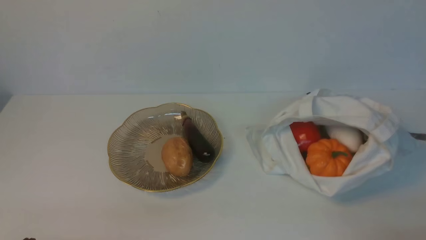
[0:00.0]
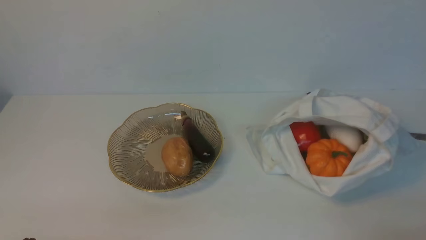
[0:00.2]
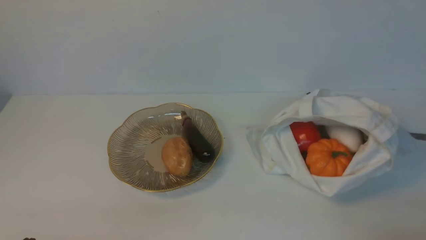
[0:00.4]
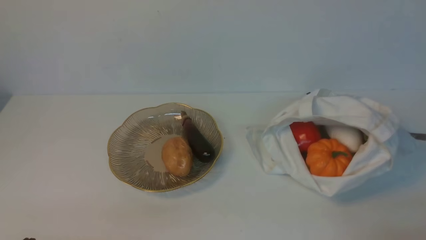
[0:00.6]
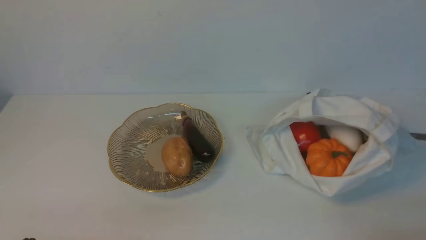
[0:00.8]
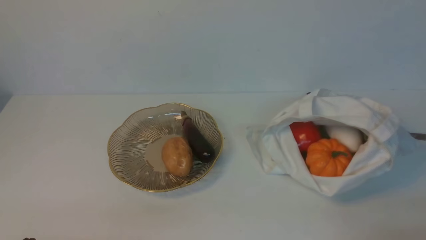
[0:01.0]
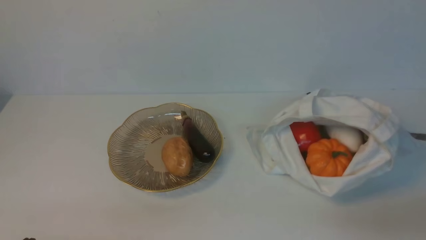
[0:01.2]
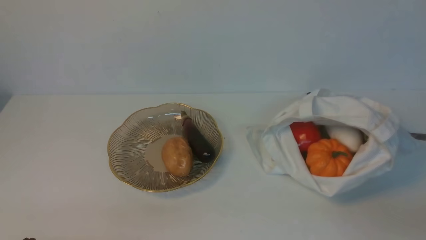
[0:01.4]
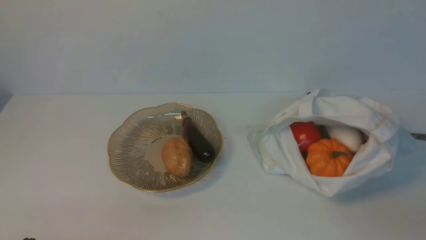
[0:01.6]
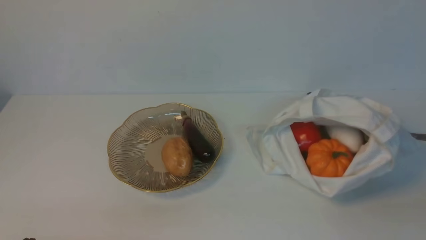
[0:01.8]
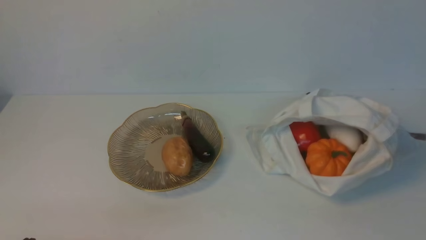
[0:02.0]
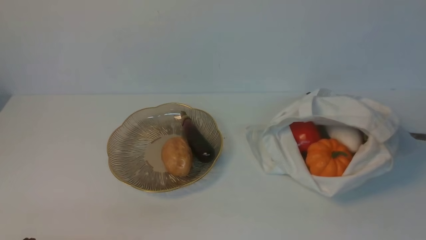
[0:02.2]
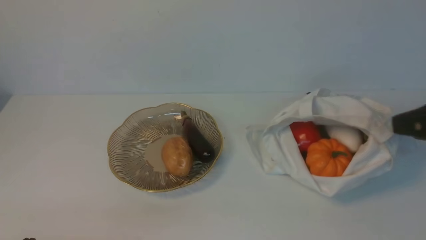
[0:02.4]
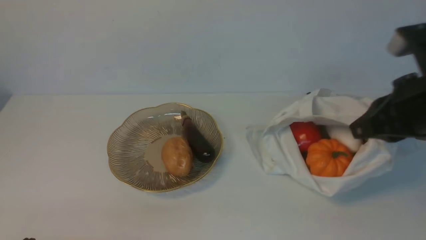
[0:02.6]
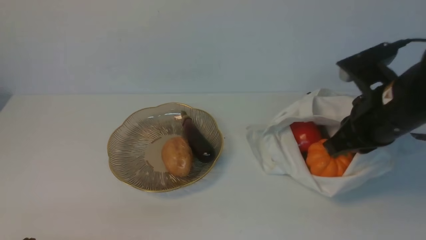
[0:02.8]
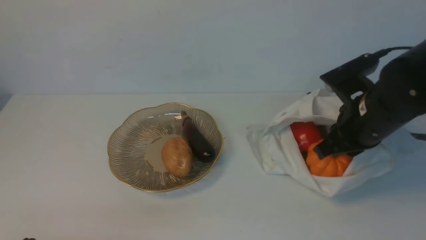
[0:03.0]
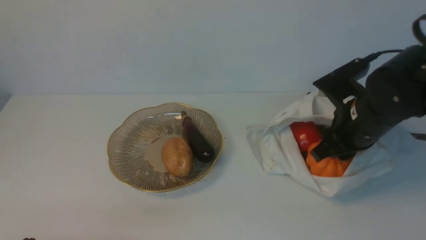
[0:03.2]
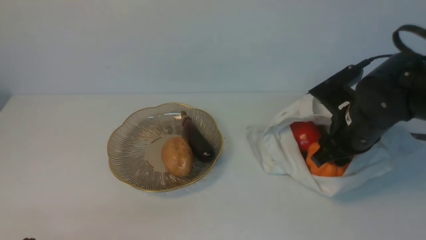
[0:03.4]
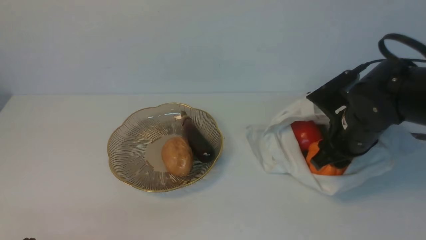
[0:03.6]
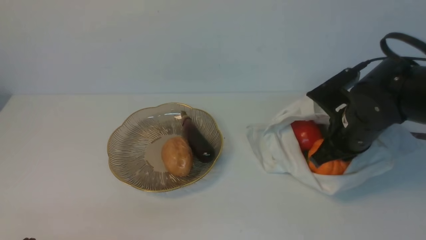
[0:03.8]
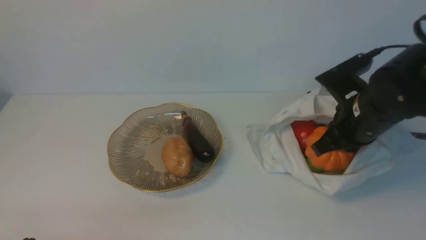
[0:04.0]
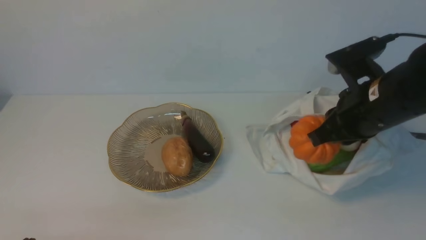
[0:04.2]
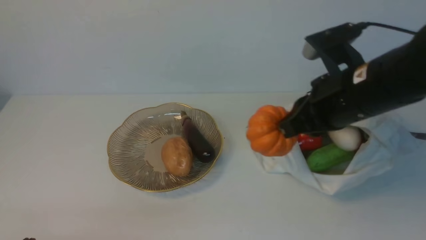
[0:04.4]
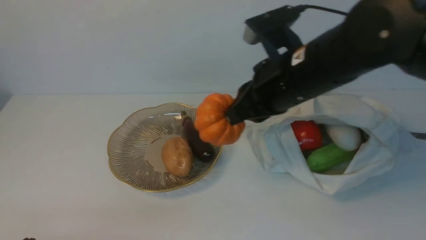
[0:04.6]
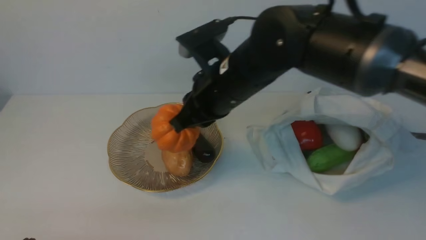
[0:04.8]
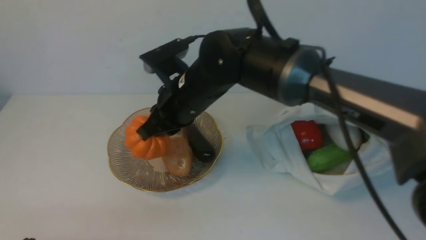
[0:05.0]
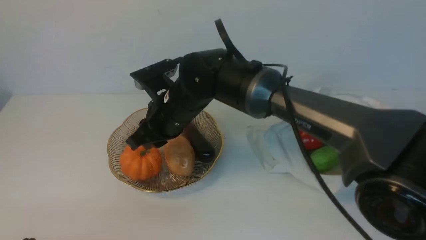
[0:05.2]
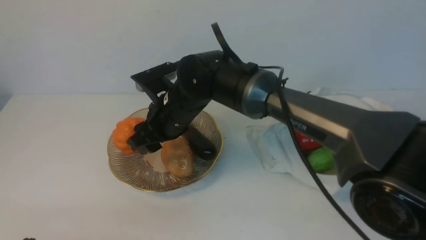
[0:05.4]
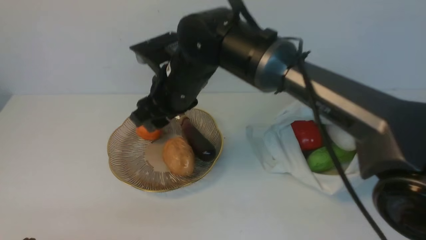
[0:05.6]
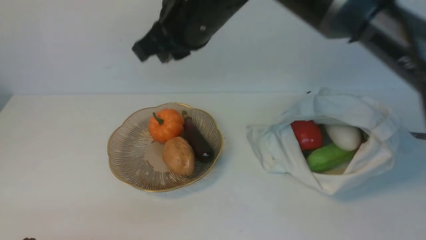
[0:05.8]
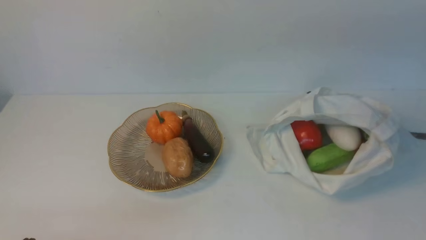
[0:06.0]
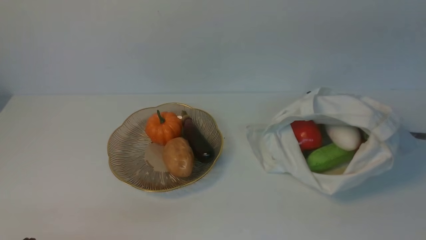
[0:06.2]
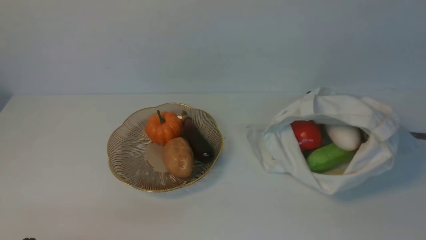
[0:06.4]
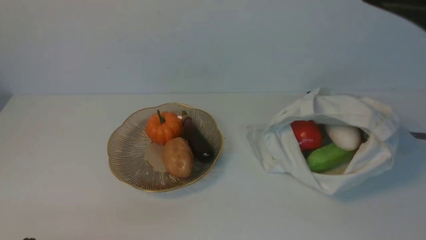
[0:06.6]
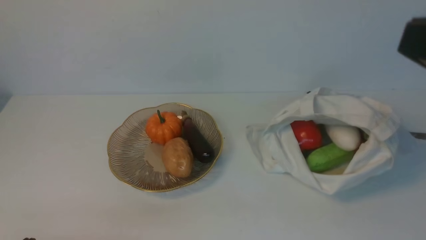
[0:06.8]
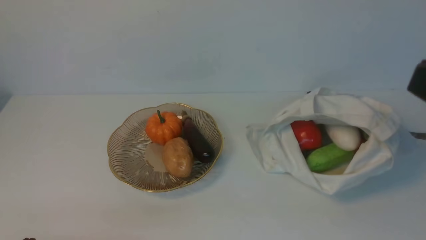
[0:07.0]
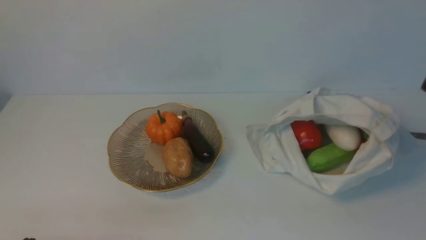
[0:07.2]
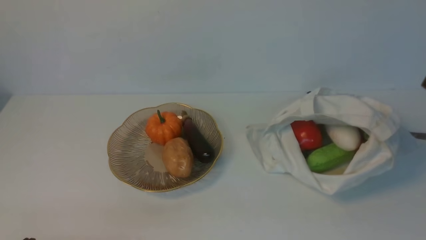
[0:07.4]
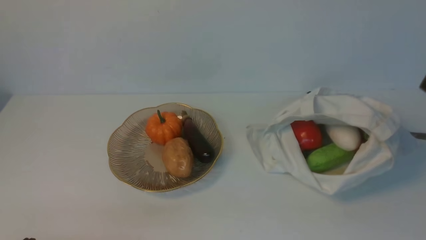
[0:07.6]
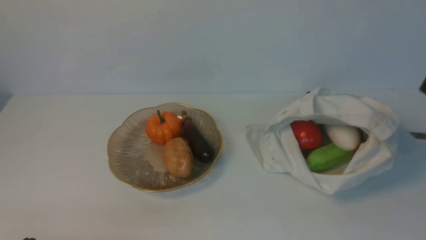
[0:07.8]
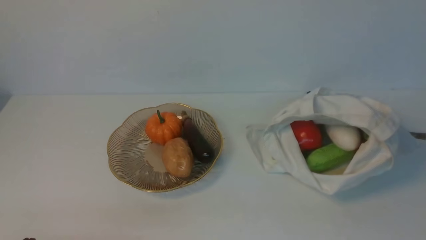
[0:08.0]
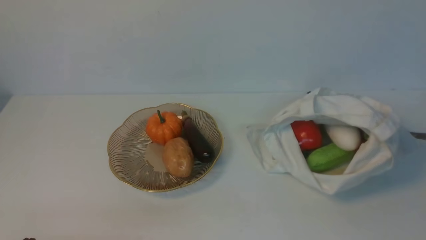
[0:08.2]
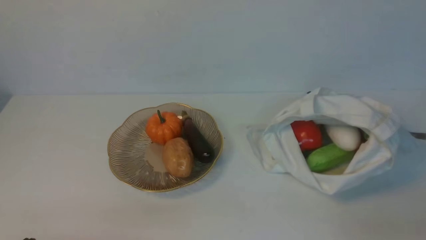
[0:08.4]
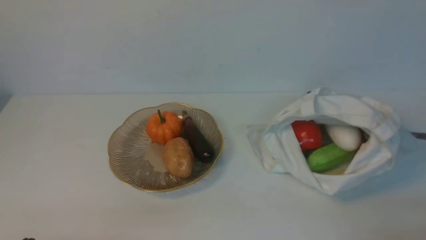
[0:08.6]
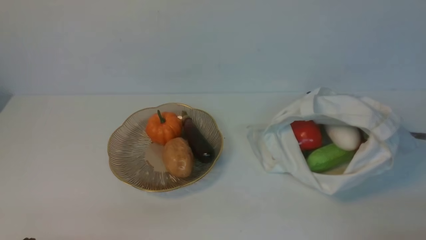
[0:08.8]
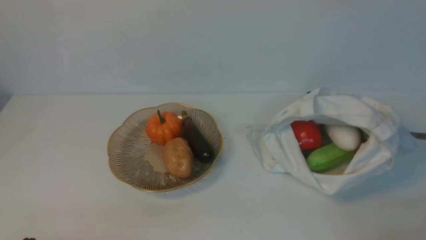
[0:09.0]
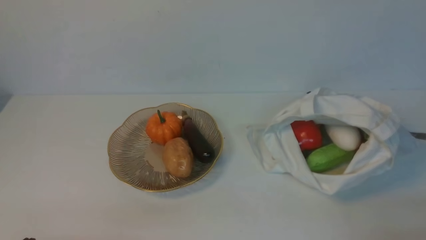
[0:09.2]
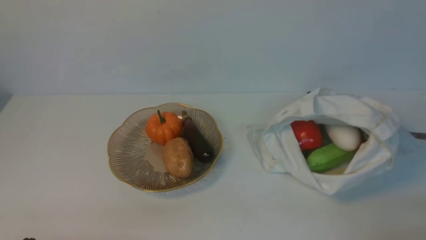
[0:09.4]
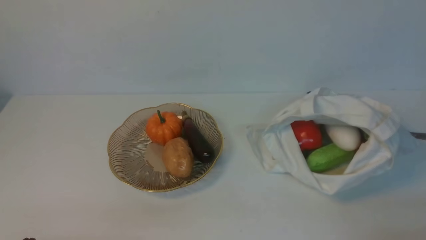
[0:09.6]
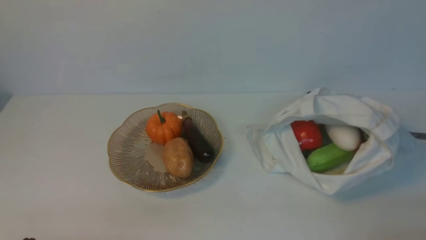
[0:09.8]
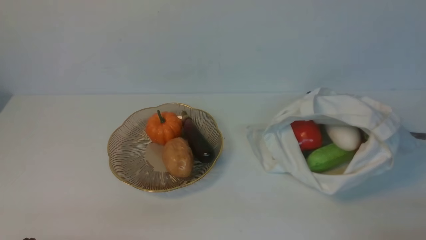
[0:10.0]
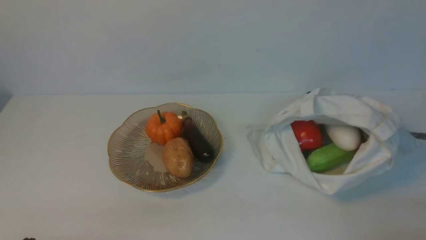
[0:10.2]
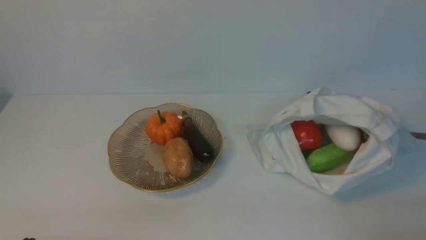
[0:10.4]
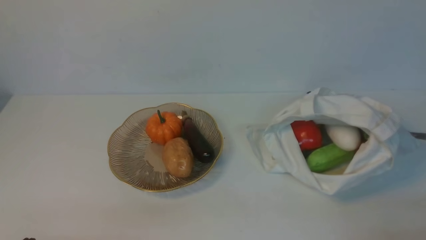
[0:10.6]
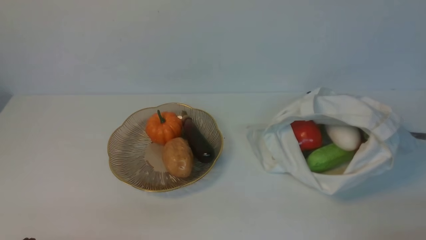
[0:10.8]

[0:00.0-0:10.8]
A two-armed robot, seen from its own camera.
Task of the whole recording: take vegetables from cloth bag on white table place on plate.
Step, 0:00.0 to 0:03.8: Grasp the pumpkin with right gripper.
Step, 0:04.0 to 0:05.4: Place the pumpkin on the plate with right gripper.
0:01.6 to 0:03.0: The right gripper moves forward and to the left, roughly 25 cm, and opens up.
0:03.0 to 0:04.6: The right gripper heads to the left and upward, covering about 15 cm, and opens, then closes again.
0:04.6 to 0:06.2: The right gripper heads upward and backward, covering approximately 20 cm, and opens, then closes once more.
0:09.2 to 0:10.8: The two grippers keep their place.

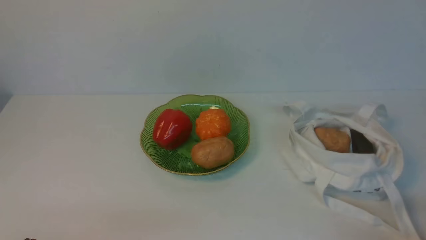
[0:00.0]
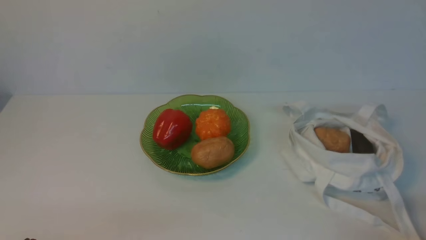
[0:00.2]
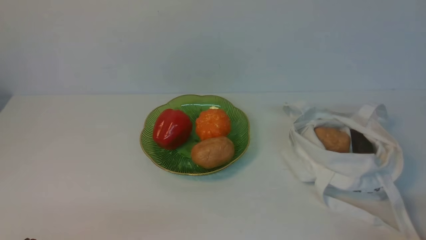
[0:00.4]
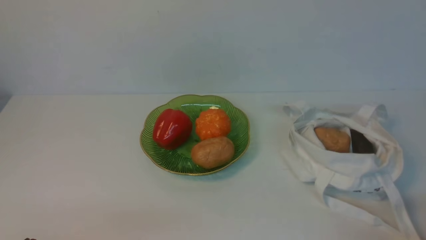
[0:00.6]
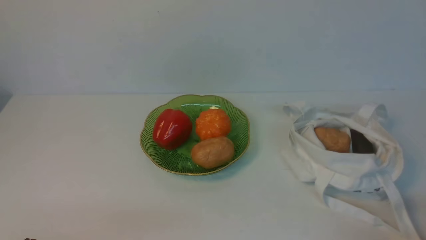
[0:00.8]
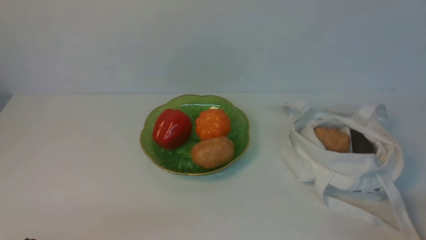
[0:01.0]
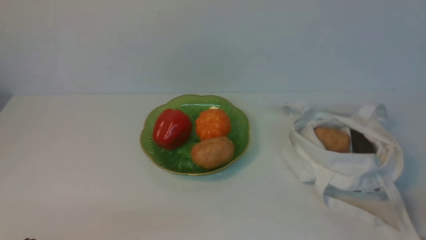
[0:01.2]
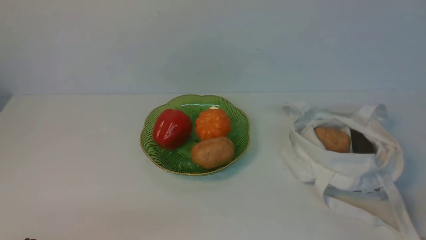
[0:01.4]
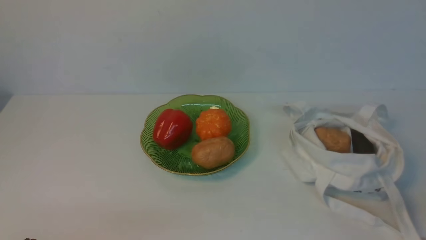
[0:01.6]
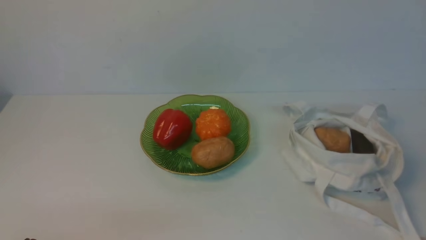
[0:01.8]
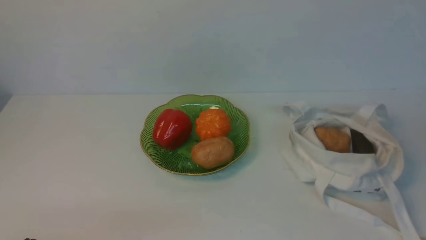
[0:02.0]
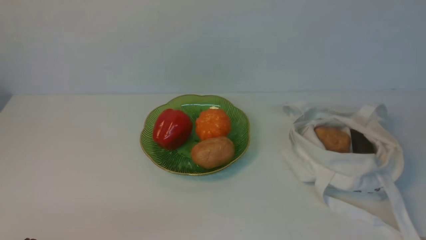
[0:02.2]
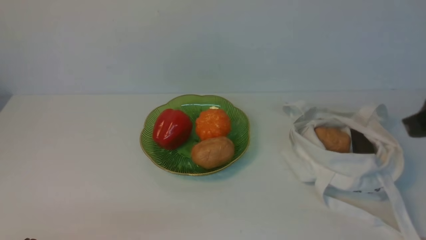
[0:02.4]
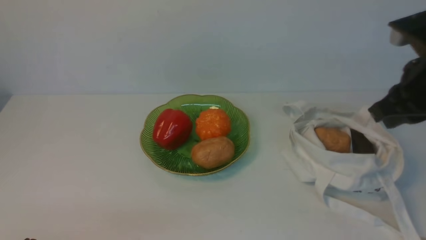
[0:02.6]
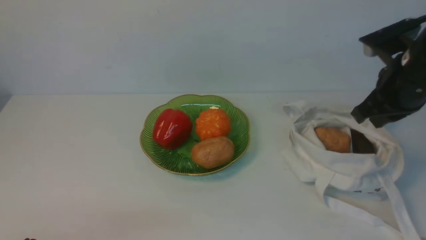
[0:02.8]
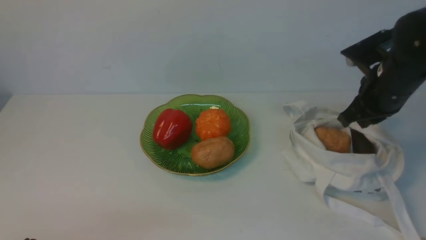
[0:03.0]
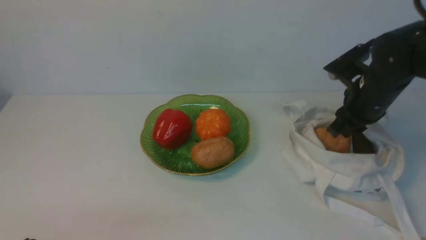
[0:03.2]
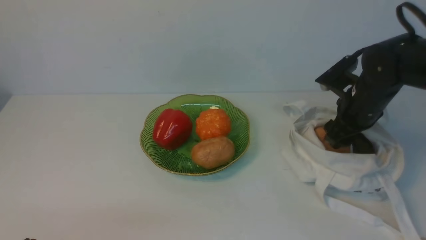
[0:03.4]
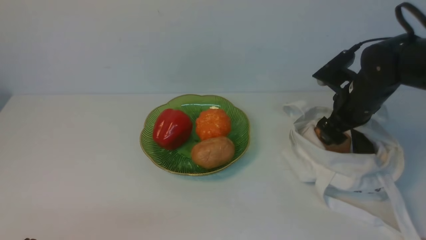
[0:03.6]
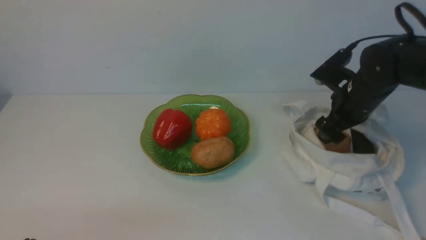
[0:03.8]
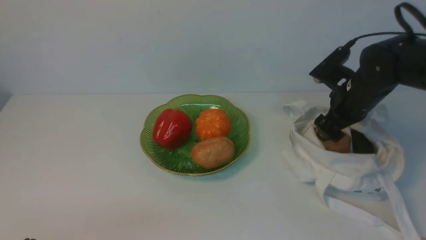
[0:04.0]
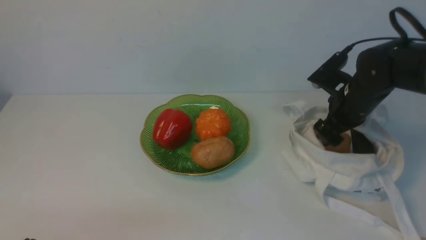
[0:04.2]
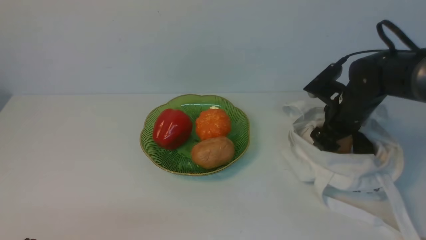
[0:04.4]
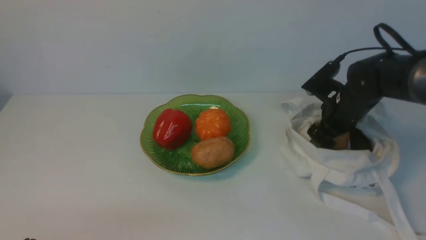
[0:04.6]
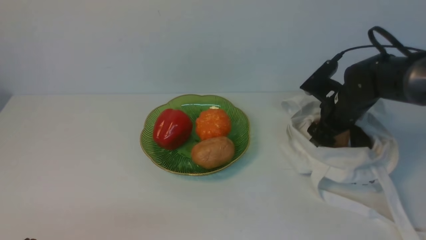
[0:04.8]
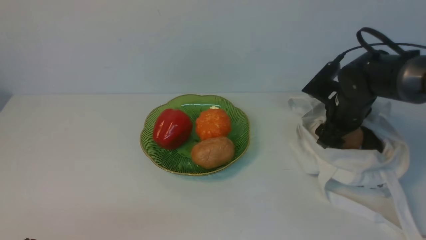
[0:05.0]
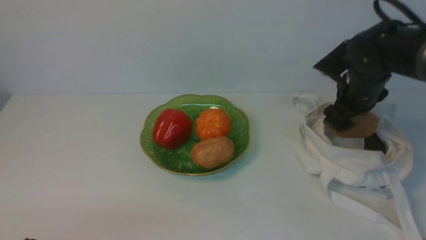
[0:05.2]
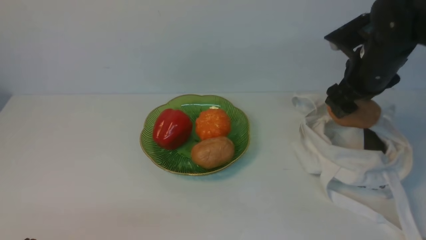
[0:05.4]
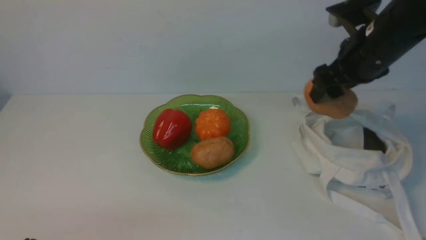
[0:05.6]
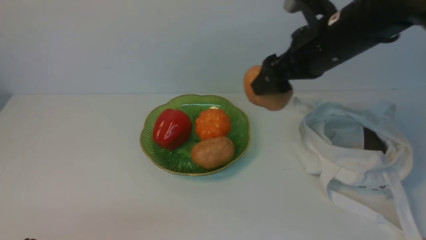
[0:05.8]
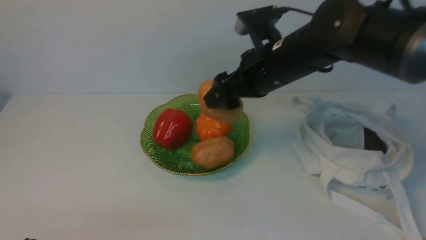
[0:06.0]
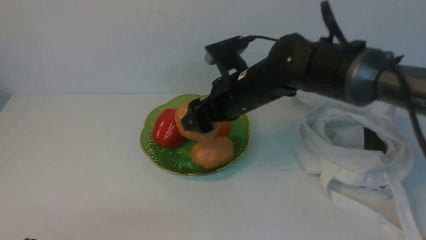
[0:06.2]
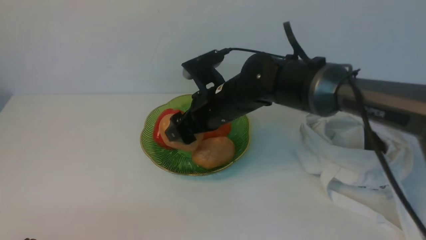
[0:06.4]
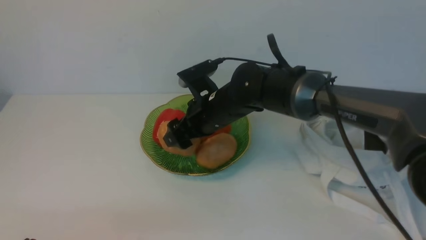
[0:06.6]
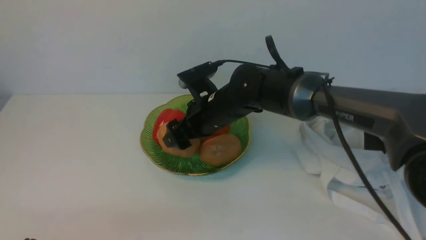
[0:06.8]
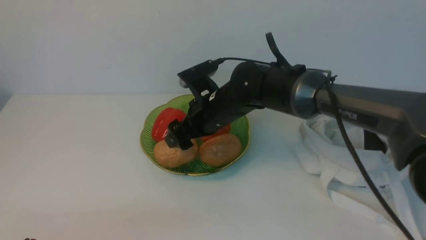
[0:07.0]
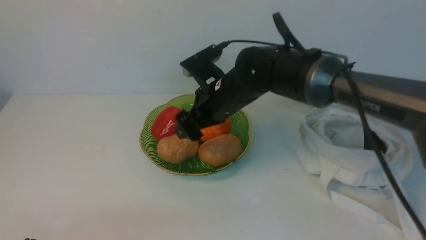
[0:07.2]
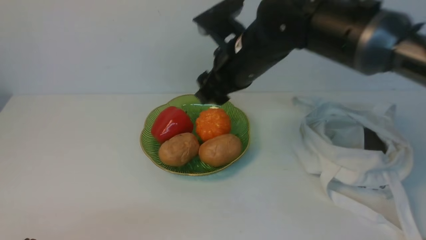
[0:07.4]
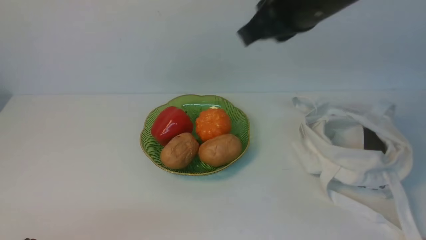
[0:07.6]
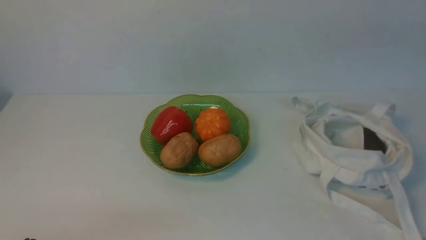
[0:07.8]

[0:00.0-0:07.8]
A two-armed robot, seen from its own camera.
Task of the whole recording: take vegetables from cloth bag on white table place on plate.
Step, 0:00.0 to 0:04.8: Grasp the potato with right gripper.
Step, 0:05.2 to 0:07.2: Place the potato on the plate with right gripper.
0:01.6 to 0:03.2: The right gripper heads forward, covering some 30 cm.
0:03.2 to 0:04.6: The right gripper travels downward by some 5 cm, and opens up.
0:04.6 to 0:06.2: The right gripper is displaced to the left and upward by some 20 cm.
0:06.2 to 0:07.8: The right gripper heads upward, backward and to the right, covering approximately 25 cm, and closes its fingers.
